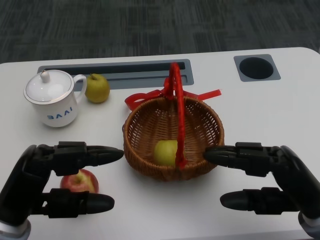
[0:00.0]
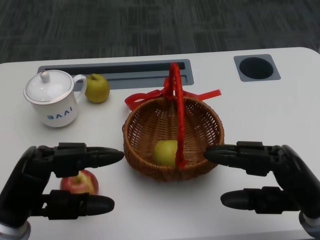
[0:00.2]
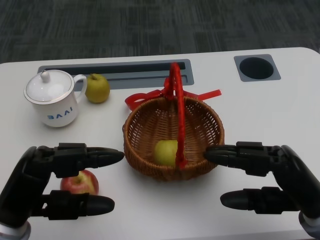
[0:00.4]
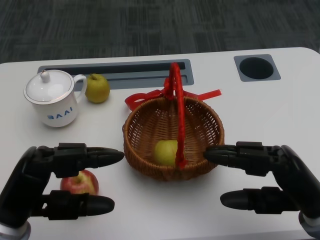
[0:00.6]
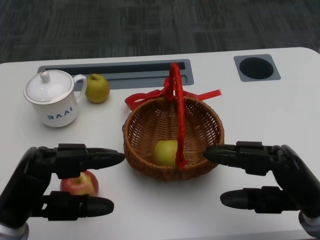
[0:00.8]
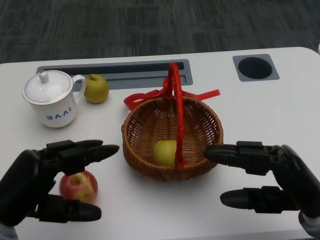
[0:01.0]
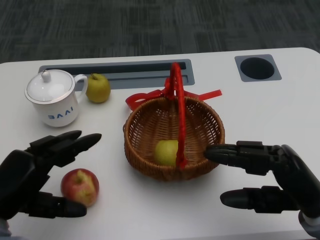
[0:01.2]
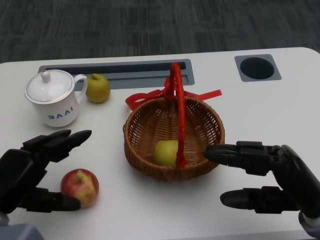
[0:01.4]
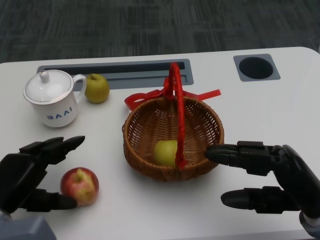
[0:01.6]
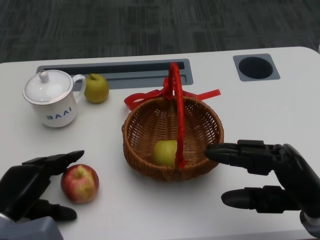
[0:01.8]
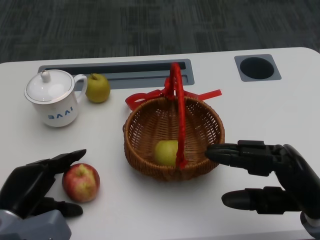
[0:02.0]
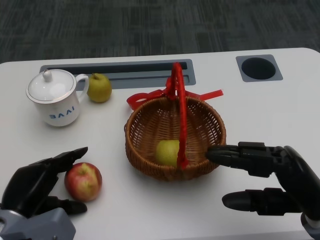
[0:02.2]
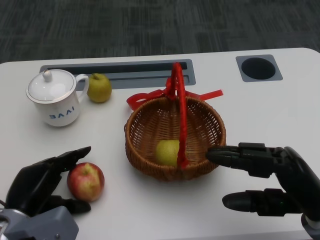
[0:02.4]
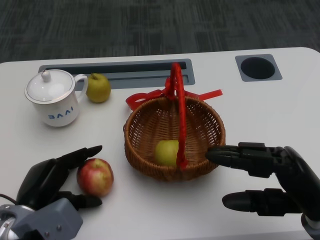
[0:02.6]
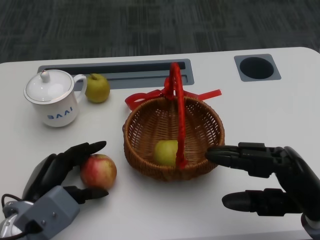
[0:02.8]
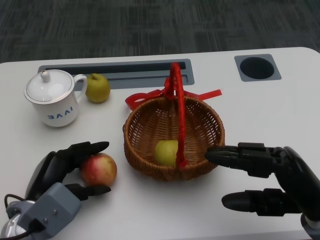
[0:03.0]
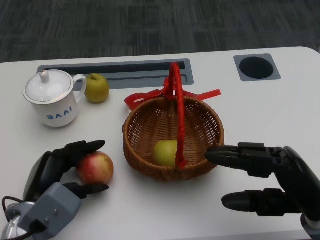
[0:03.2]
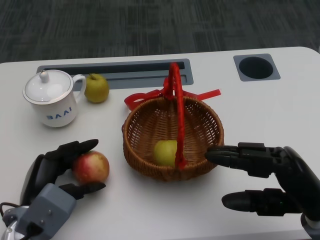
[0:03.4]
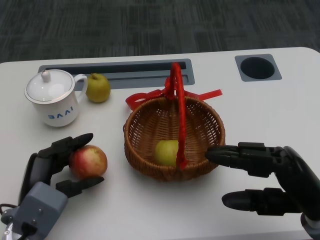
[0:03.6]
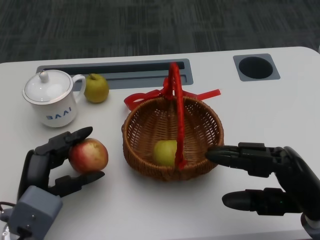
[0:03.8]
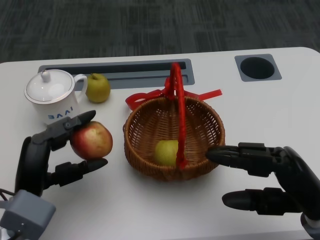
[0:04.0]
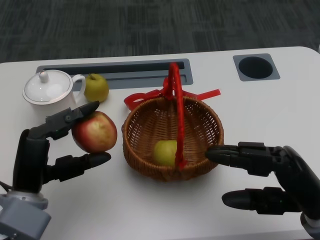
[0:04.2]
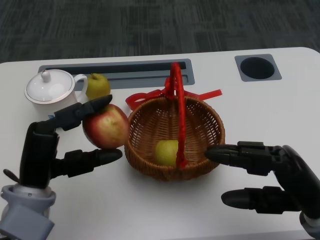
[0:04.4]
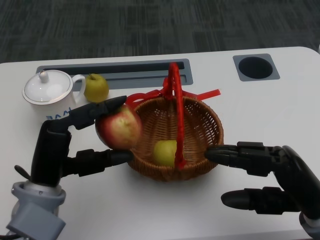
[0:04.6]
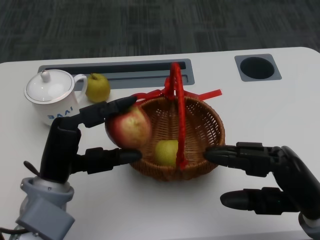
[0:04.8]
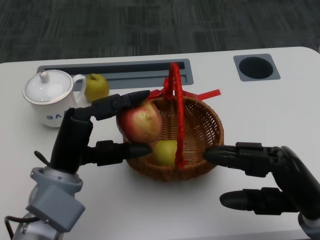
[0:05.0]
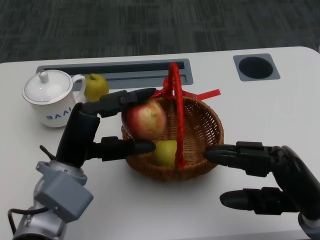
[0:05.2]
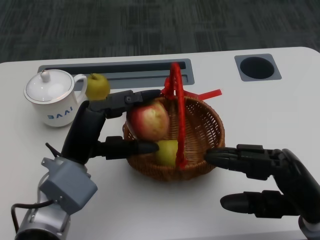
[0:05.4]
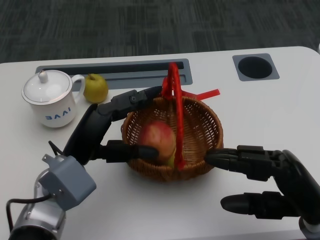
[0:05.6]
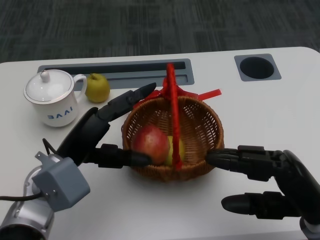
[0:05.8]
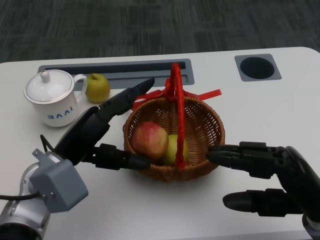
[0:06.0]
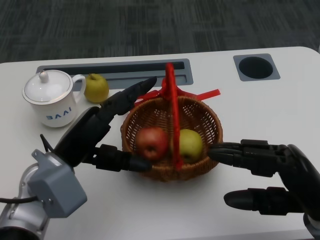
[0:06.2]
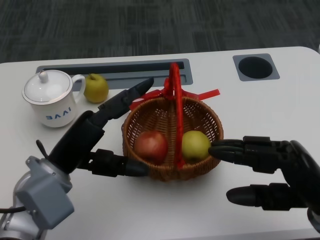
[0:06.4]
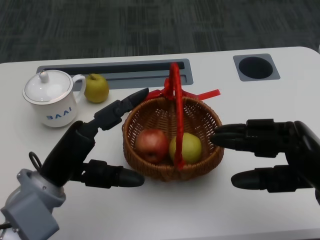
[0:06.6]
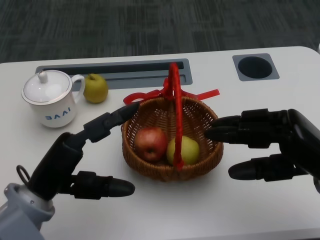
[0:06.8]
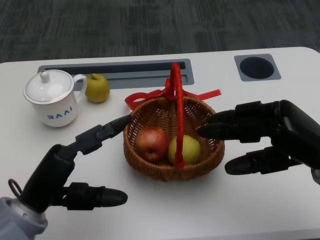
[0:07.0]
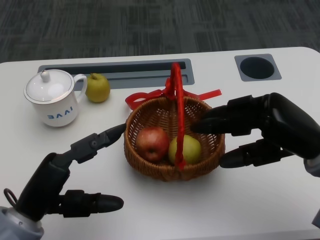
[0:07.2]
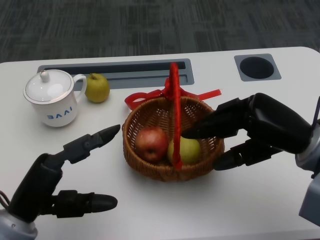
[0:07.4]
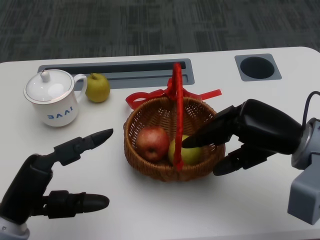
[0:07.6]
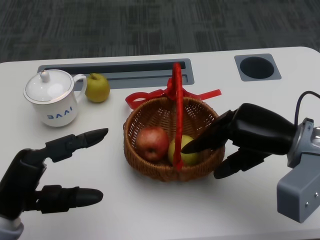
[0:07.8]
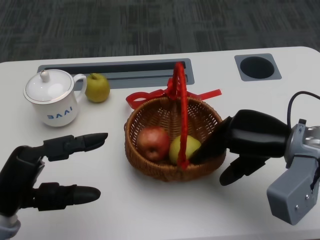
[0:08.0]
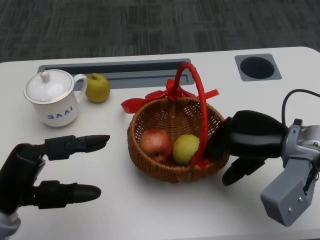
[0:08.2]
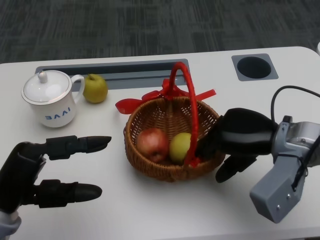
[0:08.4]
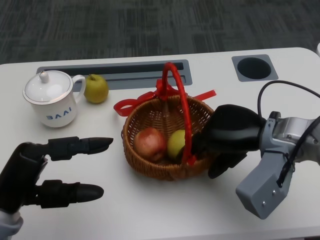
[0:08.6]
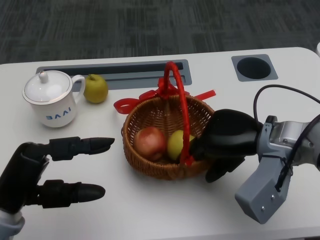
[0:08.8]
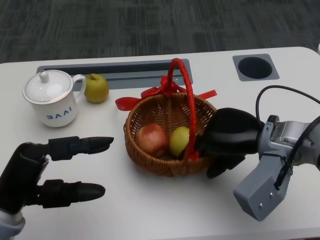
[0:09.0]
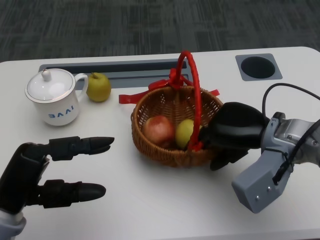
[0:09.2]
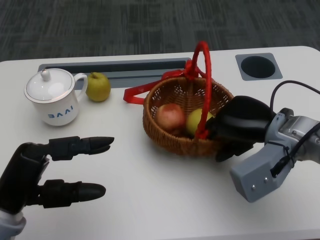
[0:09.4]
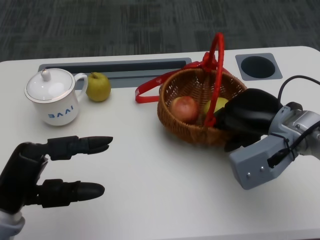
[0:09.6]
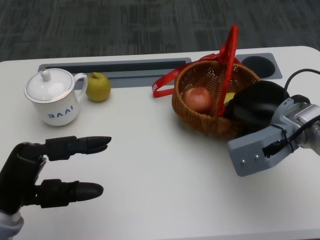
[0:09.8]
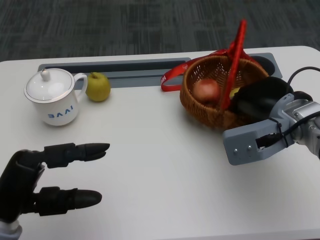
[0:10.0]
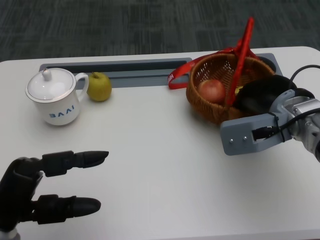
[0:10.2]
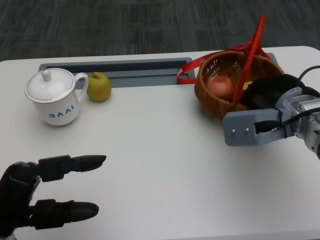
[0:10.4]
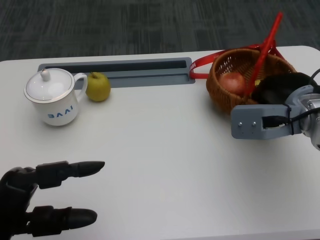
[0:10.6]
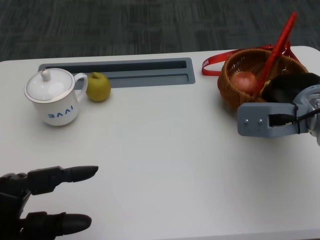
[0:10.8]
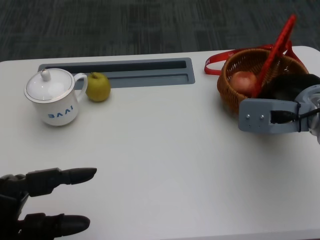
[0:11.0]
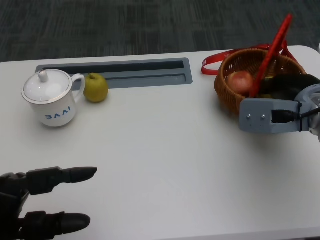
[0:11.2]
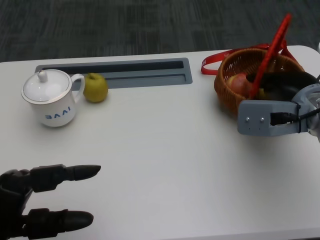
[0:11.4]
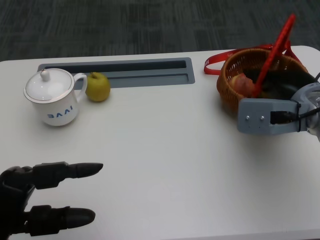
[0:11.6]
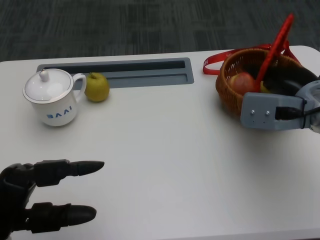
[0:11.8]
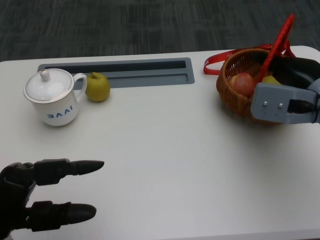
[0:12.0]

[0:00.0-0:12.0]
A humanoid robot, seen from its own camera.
Step, 0:00.8 to 0:02.2: Grasp the apple with the left gripper.
Step, 0:02.4 to 0:04.8: Place the apple into the basket with the left gripper.
Step, 0:05.0 to 0:07.2: Grasp the basket with the right gripper.
Step, 0:07.6 to 0:09.4: Move the basket to the front of the table with the right gripper.
0:01.6 to 0:03.0: The left hand moves to the right, roughly 5 cm.
0:03.0 to 0:04.4: The left hand is displaced upward by approximately 5 cm.
0:06.0 to 0:07.6: The right hand travels forward by about 10 cm, while the left hand goes approximately 10 cm backward and to the left.
0:07.6 to 0:09.0: The right hand shifts by approximately 5 cm.
0:10.4 to 0:12.0: The hands move only a little.

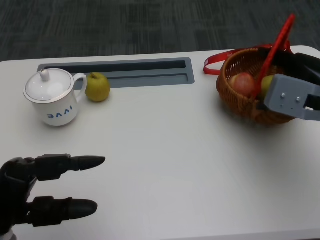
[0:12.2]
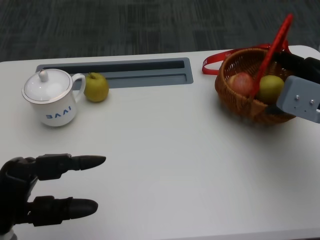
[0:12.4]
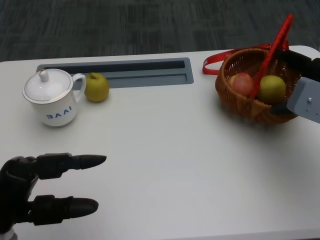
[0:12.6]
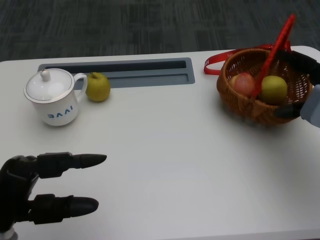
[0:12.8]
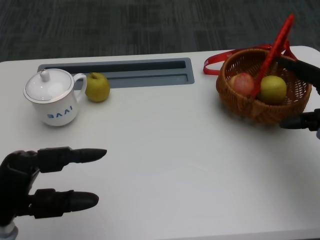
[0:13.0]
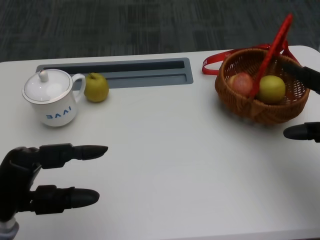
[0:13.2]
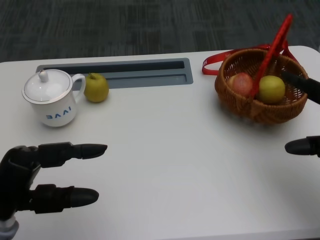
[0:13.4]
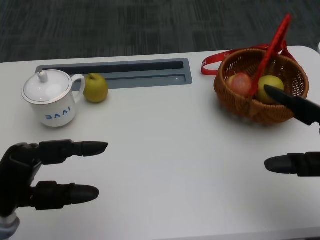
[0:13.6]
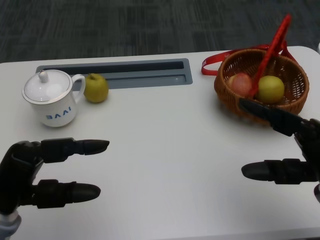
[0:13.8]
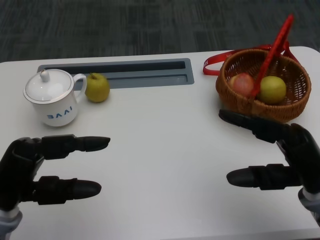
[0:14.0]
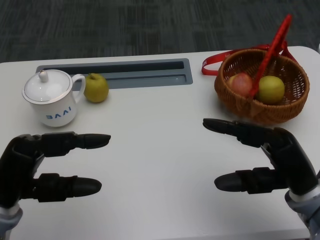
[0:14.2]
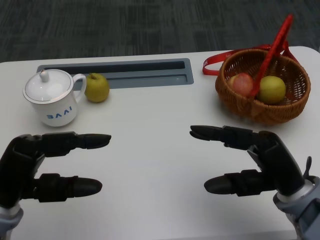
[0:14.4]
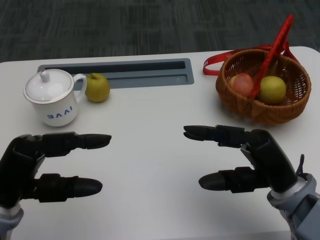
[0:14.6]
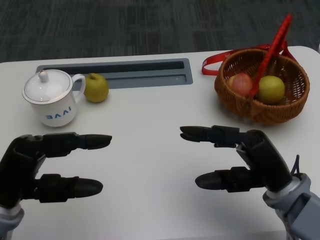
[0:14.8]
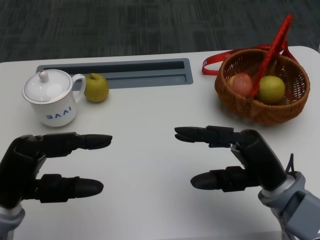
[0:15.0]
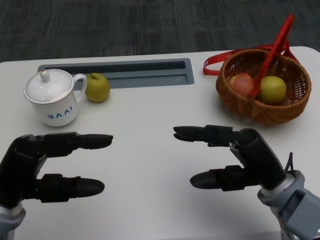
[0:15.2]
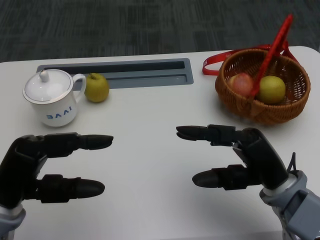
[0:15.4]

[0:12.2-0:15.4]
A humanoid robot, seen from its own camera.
0:12.2 to 0:13.8: The right hand travels backward and downward by about 15 cm.
0:13.8 to 0:15.4: The right hand moves to the left, about 5 cm.

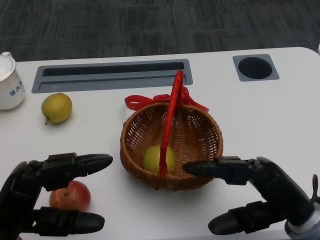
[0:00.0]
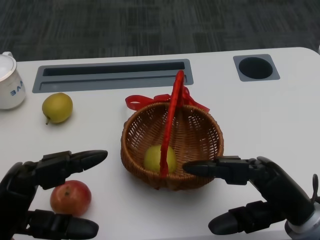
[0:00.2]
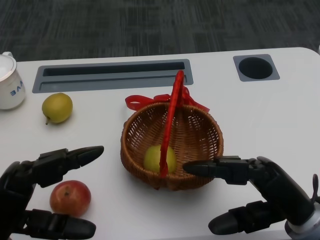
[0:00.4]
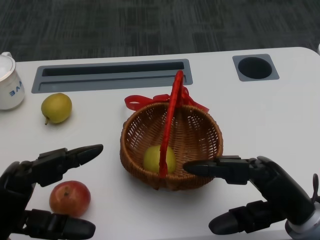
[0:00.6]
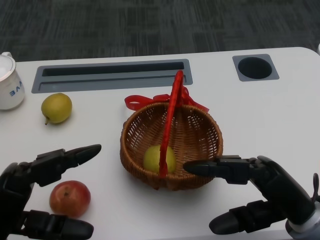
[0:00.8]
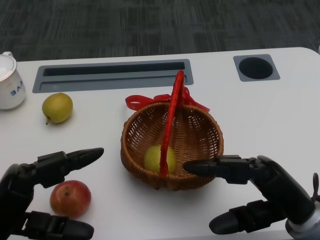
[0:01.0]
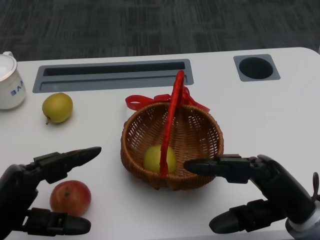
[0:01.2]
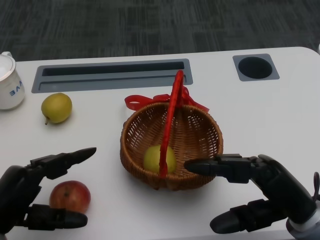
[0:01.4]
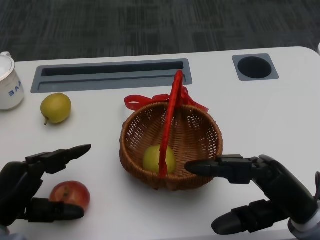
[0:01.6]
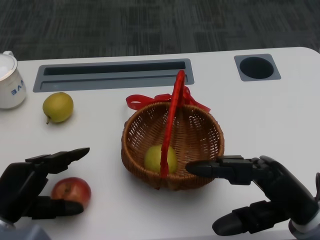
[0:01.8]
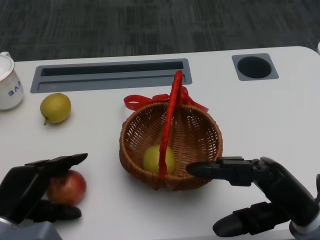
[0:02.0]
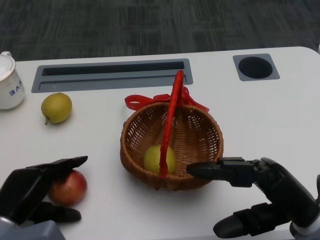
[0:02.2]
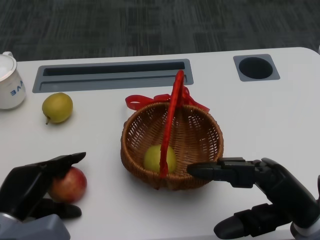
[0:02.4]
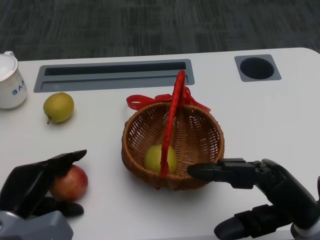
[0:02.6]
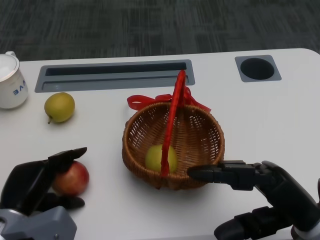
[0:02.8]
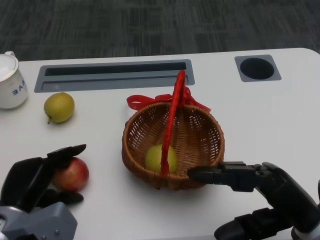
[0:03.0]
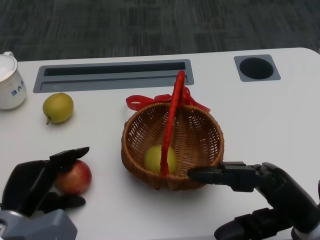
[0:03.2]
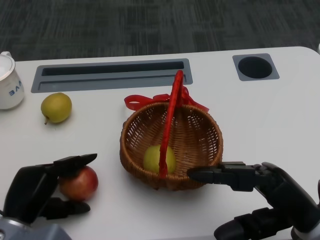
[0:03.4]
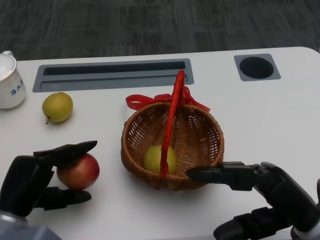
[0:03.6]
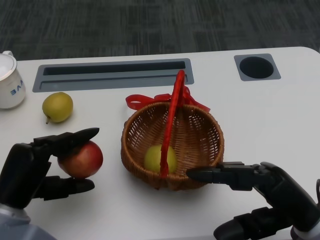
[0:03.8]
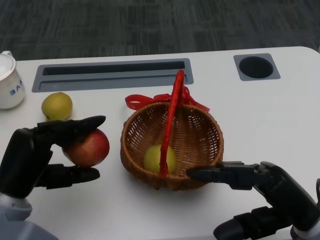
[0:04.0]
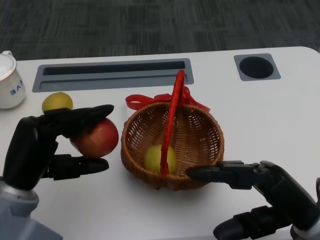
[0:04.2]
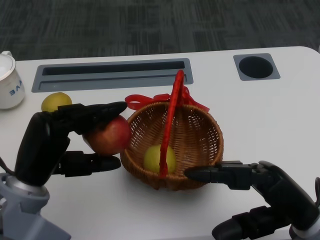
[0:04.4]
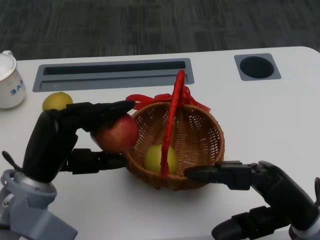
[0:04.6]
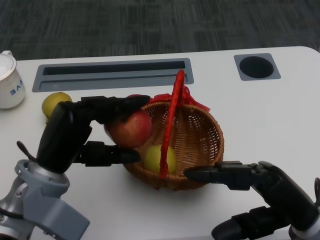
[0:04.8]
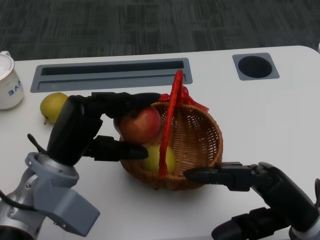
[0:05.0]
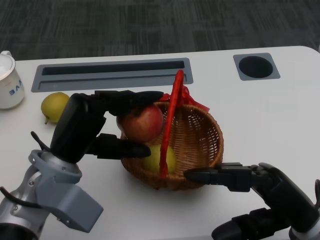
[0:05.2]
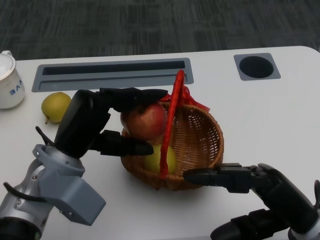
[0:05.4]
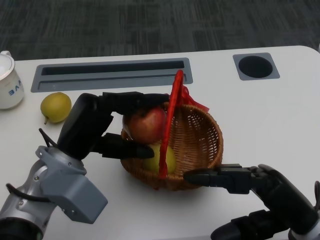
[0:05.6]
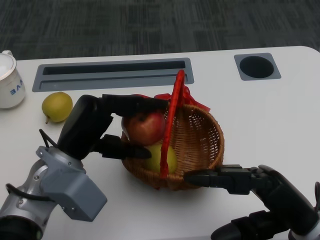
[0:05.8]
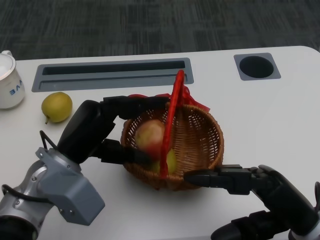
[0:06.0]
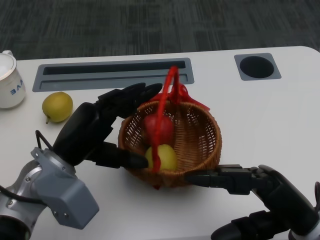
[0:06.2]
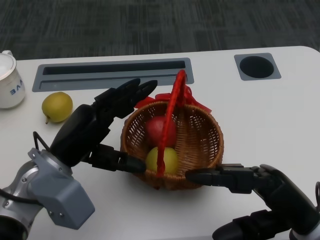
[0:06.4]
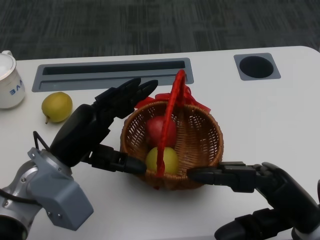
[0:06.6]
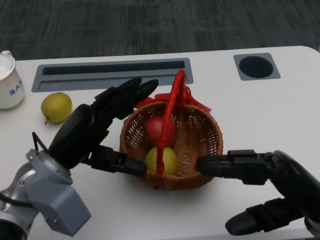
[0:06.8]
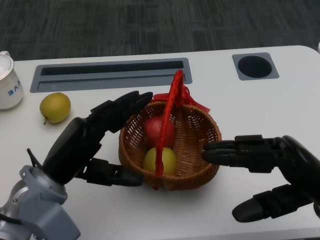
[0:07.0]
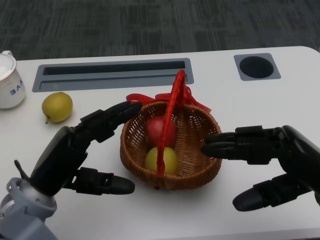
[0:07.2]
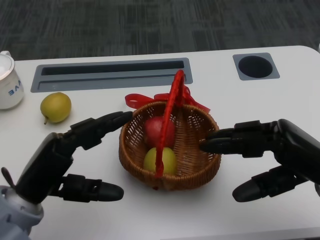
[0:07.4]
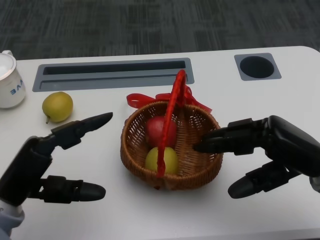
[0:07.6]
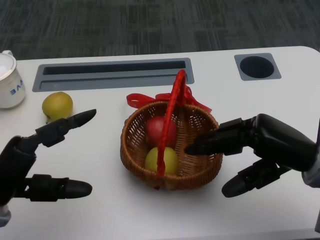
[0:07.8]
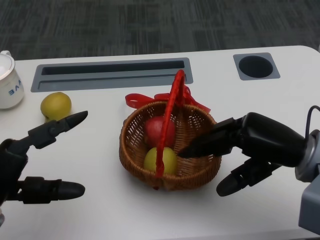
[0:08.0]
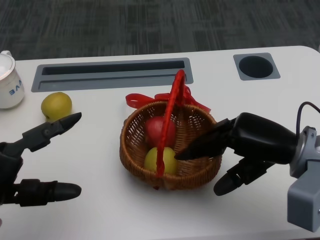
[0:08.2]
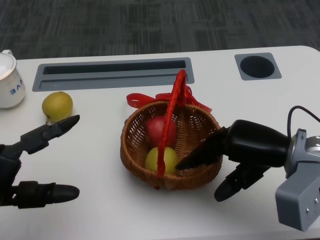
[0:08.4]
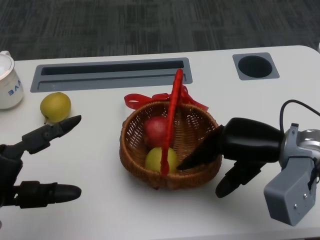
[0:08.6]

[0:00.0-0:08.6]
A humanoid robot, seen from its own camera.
Step, 0:00.0 to 0:02.4: Grasp the apple with the left gripper.
Step, 0:02.8 to 0:05.2: Place the apple into the basket with the left gripper.
Step, 0:05.4 to 0:07.6: Grasp the basket with the right gripper.
0:01.4 to 0:02.8: The left hand ends up about 5 cm from where it was.
0:02.8 to 0:04.4: The left hand goes approximately 10 cm upward.
0:04.4 to 0:05.8: The left hand changes place by about 5 cm.
0:05.8 to 0:07.2: The right hand changes place by some 5 cm; the left hand changes place by roughly 5 cm.
0:07.2 to 0:08.6: The left hand goes some 5 cm to the left; the right hand shifts approximately 5 cm forward.
